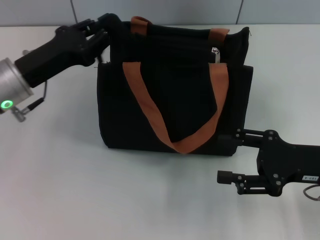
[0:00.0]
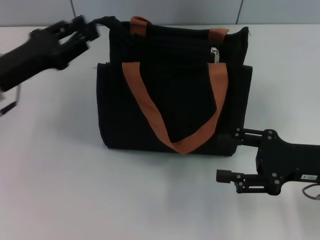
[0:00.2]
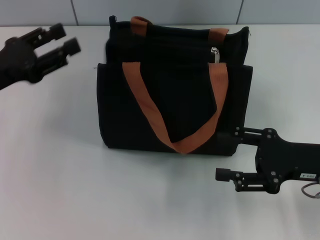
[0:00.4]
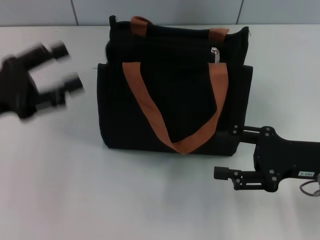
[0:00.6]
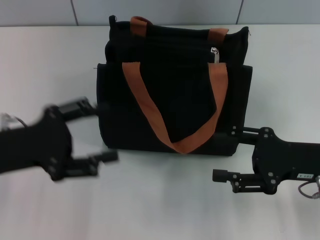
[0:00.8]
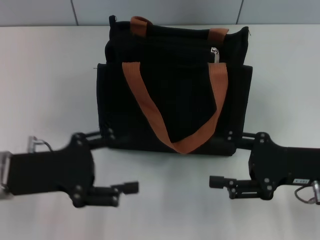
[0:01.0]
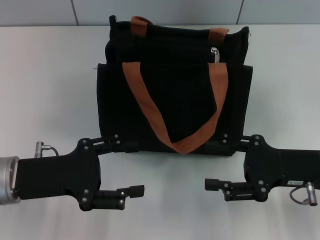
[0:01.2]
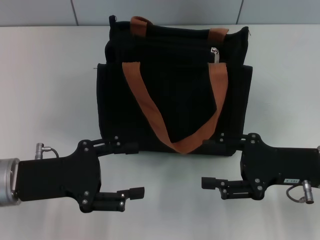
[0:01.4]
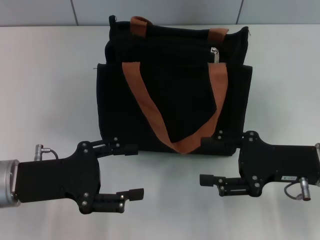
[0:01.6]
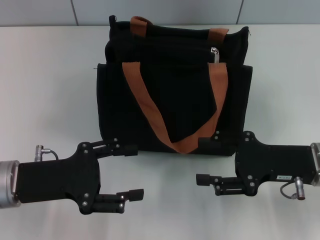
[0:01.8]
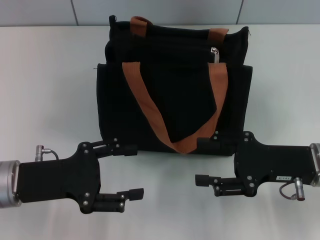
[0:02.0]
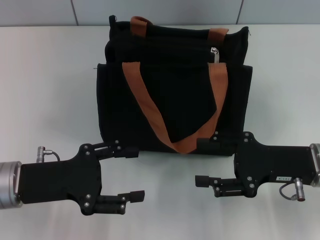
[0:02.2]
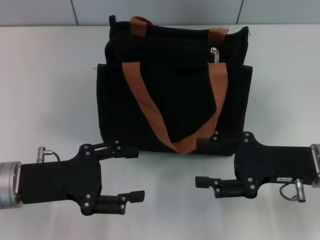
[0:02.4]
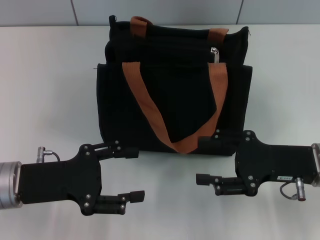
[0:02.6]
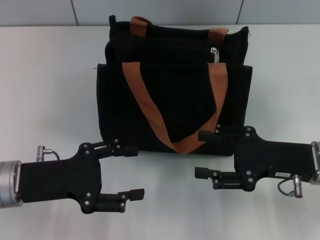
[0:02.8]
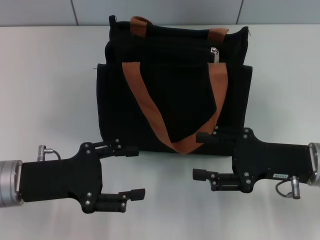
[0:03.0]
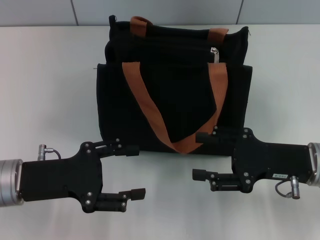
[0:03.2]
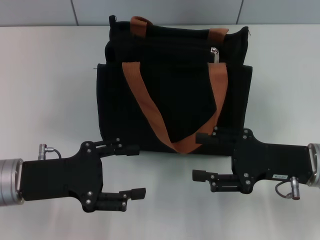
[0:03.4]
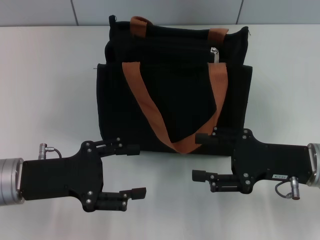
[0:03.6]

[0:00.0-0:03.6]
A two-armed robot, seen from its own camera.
0:00.0 to 0:01.8: The left gripper moves backward, about 10 cm, and opens.
0:01.8 to 0:03.6: Both grippers stay about where they are.

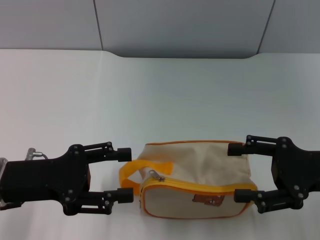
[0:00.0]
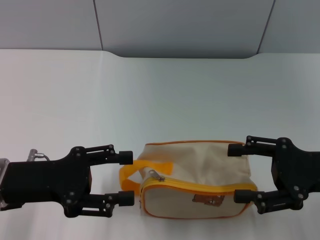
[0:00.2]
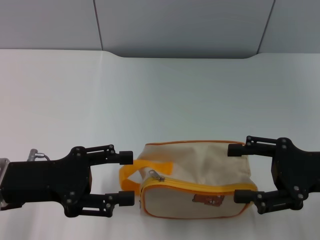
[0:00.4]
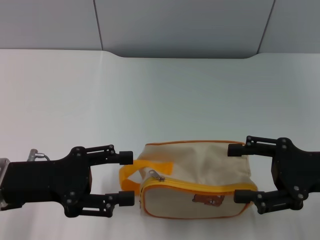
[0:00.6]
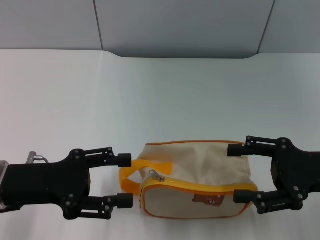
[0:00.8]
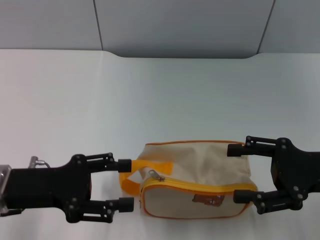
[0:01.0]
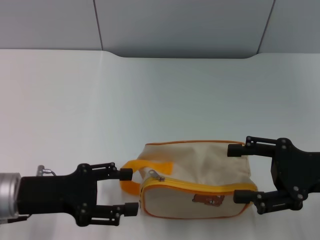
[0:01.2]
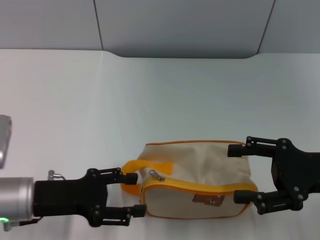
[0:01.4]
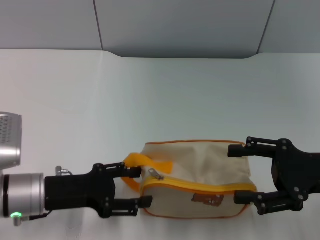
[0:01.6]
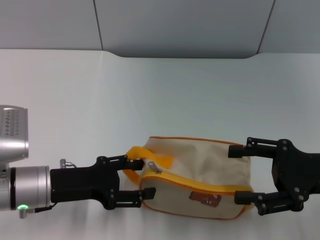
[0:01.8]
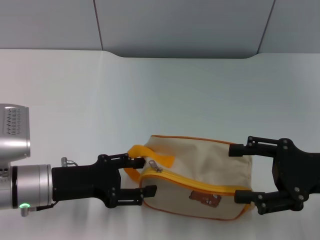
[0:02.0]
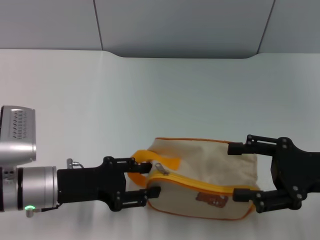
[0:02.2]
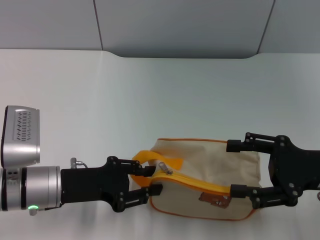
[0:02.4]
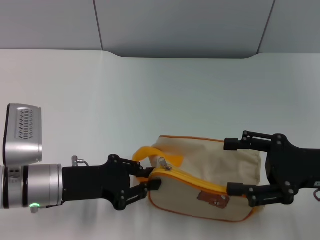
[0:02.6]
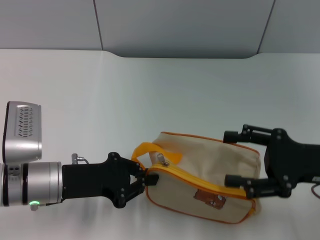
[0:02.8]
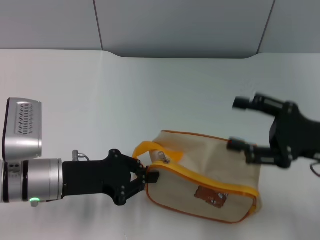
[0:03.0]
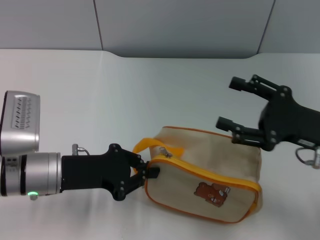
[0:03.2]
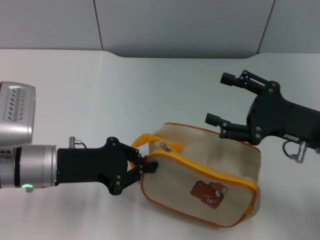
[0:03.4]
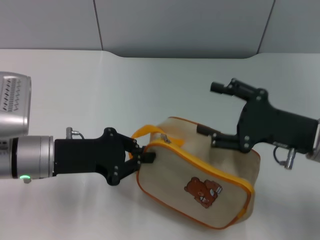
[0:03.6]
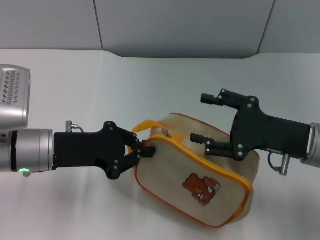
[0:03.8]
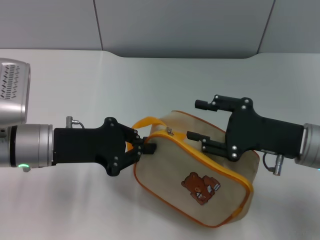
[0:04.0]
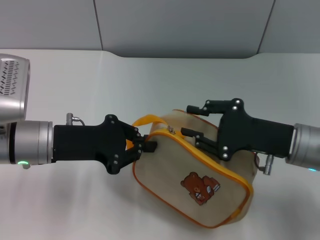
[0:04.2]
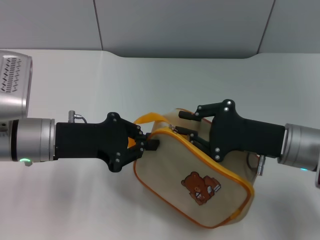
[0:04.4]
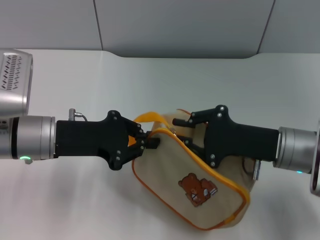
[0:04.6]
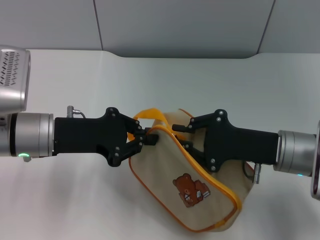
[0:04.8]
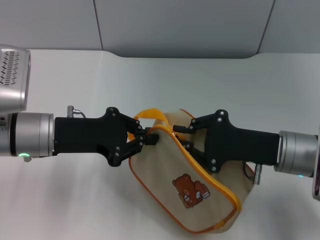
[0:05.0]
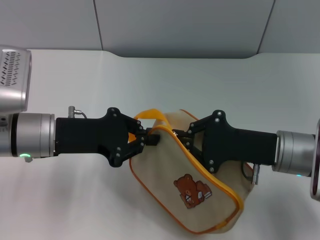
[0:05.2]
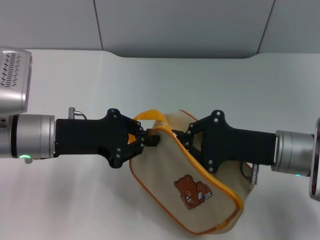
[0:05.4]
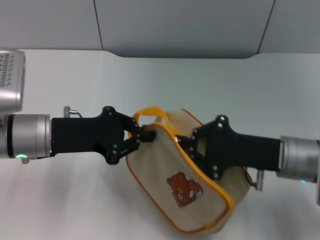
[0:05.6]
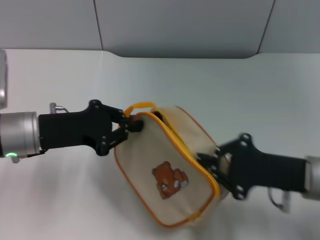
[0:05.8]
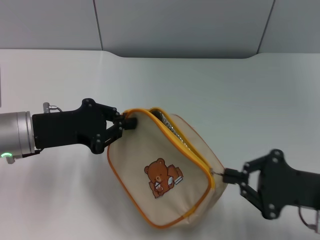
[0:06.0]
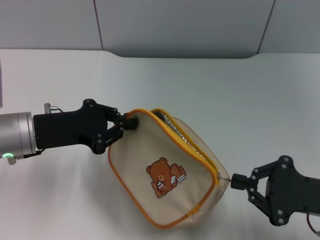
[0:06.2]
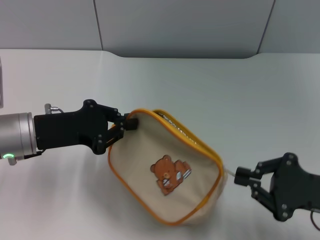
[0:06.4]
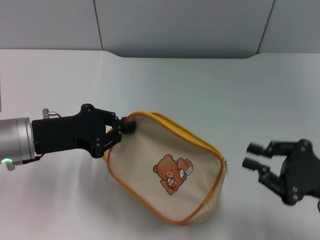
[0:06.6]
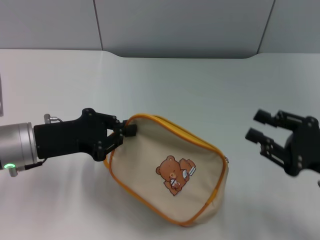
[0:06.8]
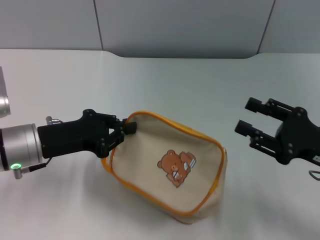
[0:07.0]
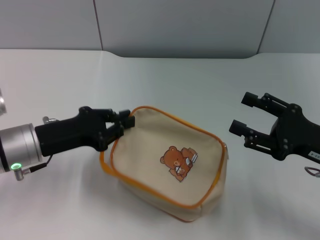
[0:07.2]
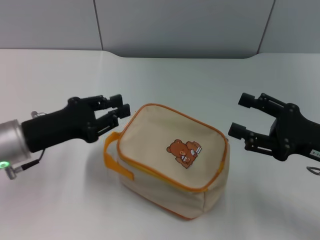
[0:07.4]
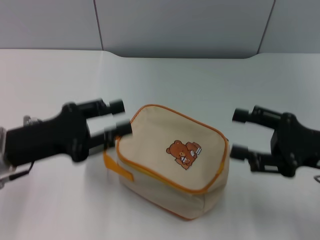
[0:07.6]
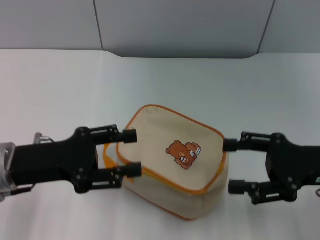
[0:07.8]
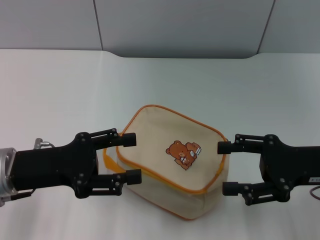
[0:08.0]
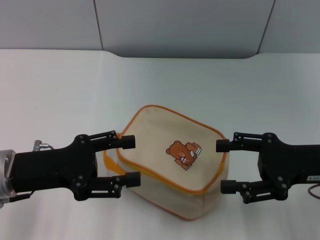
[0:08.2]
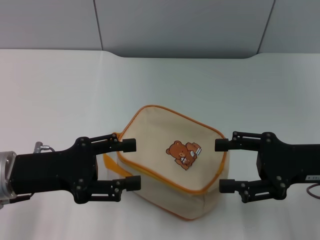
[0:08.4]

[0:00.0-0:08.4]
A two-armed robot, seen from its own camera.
Step, 0:00.0 to 0:03.6: Pick up the bag with left gripper.
Step, 0:03.8 to 0:06.4: Unzip the zipper of bag with right gripper.
Step, 0:06.8 to 0:07.4: Place the bag on the table with left gripper.
0:00.0 to 0:01.4: The grippers stay close to where they were, moving slightly.
0:01.4 to 0:02.8: The left gripper closes up.
0:02.8 to 0:04.2: The right gripper shifts about 5 cm to the left. The left gripper moves about 5 cm.
0:04.2 to 0:05.6: The right gripper closes.
0:05.6 to 0:07.0: The right gripper moves to the right, approximately 10 cm, and opens its fingers.
0:07.0 to 0:08.4: The right gripper opens up. The left gripper shifts by some 5 cm, and opens.
